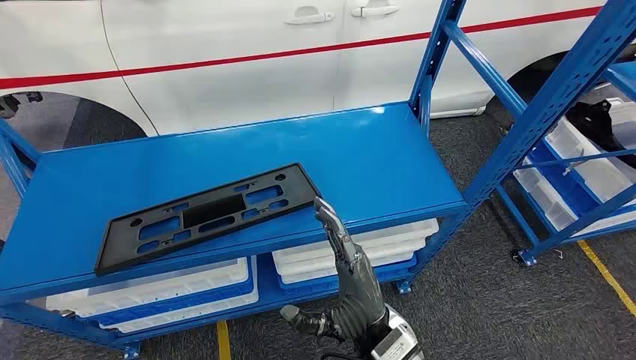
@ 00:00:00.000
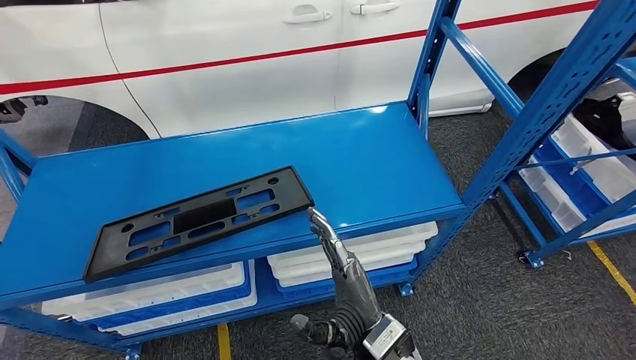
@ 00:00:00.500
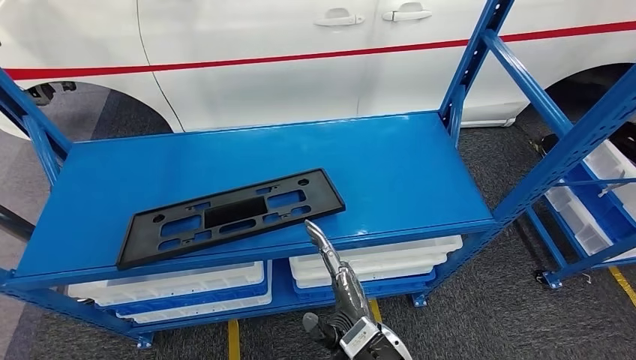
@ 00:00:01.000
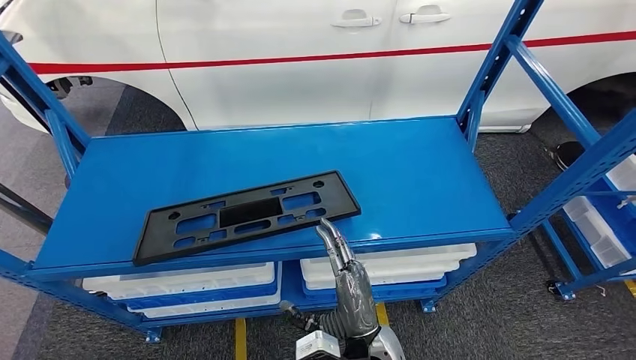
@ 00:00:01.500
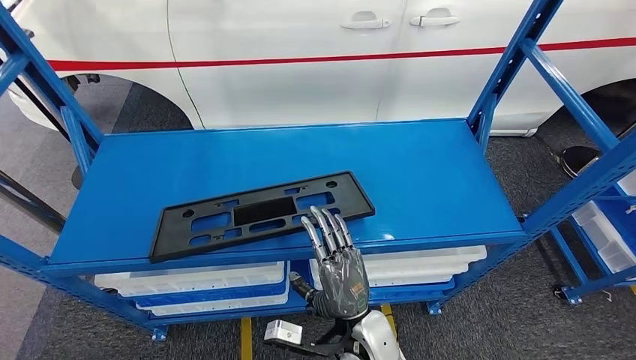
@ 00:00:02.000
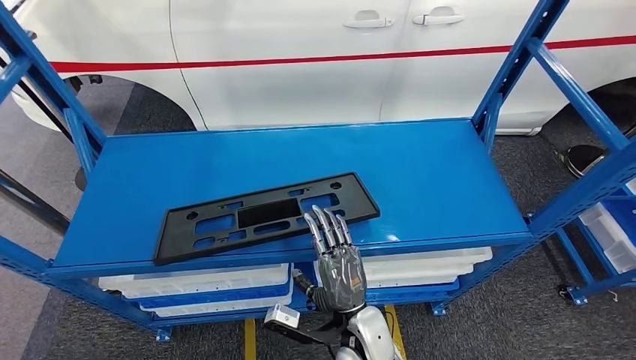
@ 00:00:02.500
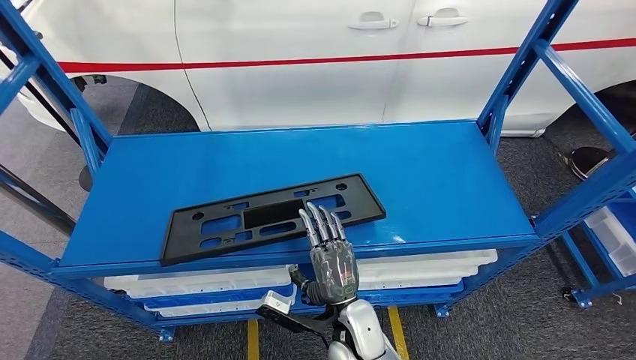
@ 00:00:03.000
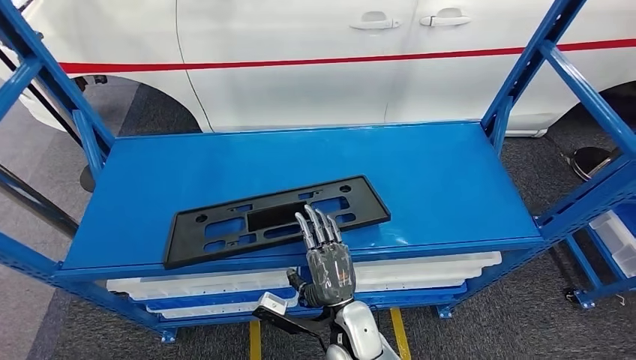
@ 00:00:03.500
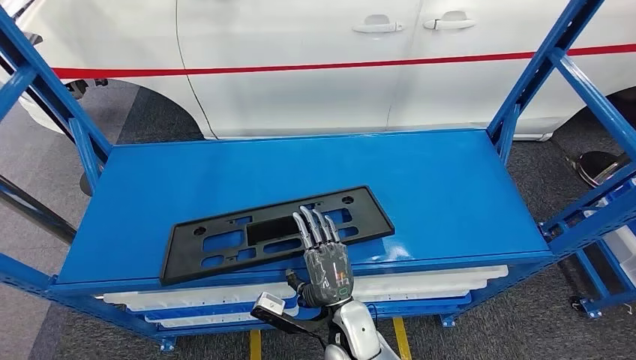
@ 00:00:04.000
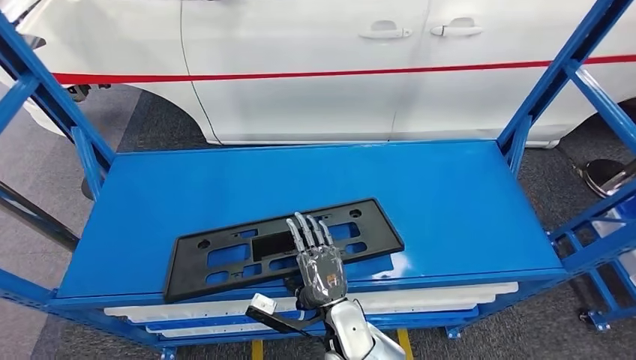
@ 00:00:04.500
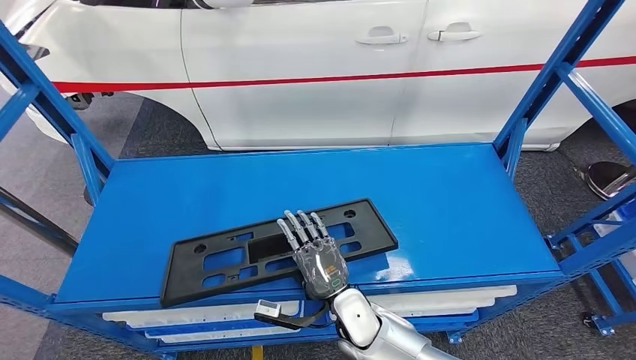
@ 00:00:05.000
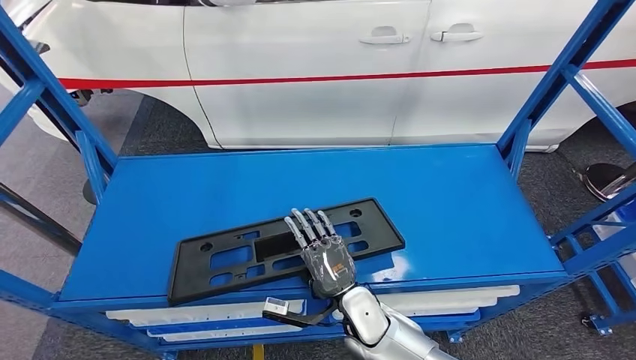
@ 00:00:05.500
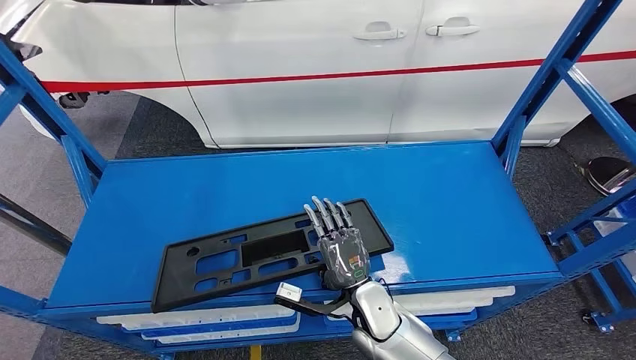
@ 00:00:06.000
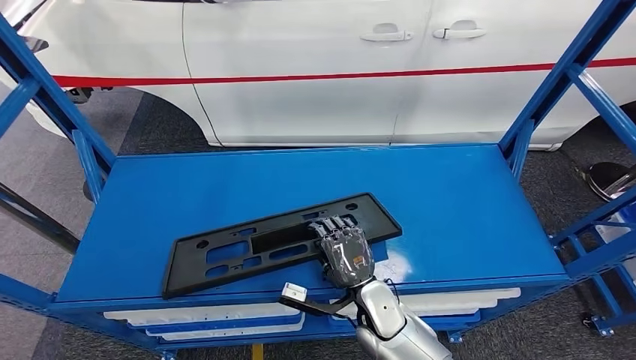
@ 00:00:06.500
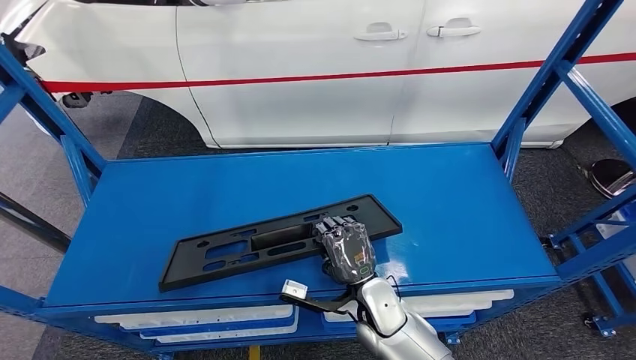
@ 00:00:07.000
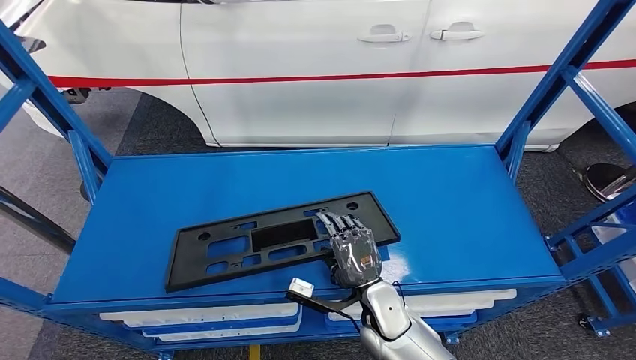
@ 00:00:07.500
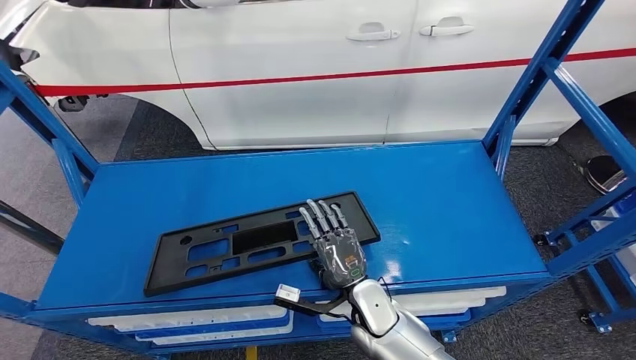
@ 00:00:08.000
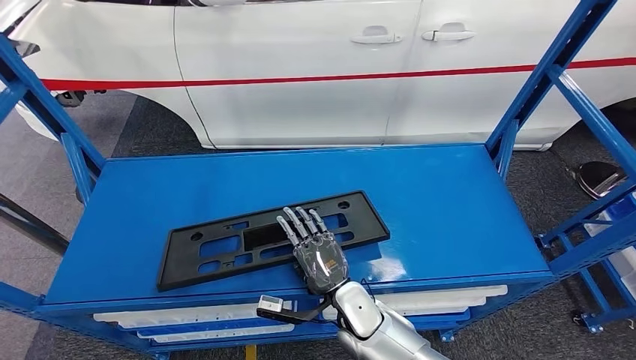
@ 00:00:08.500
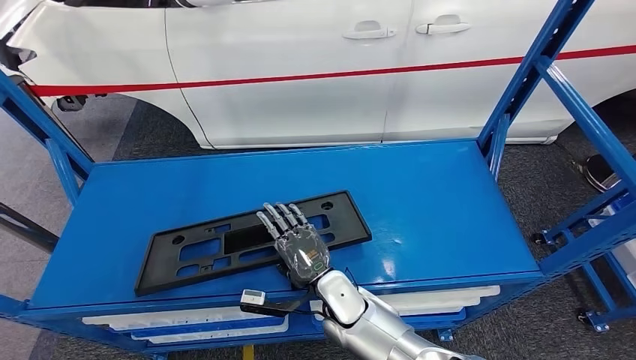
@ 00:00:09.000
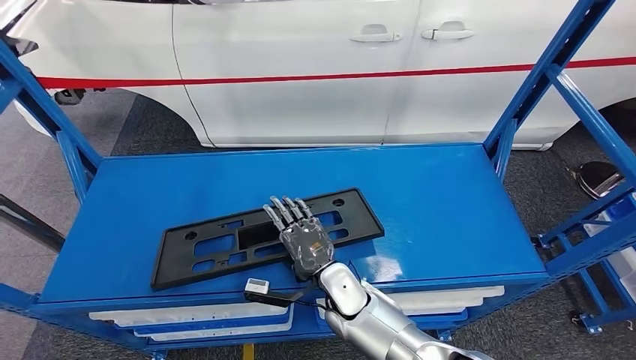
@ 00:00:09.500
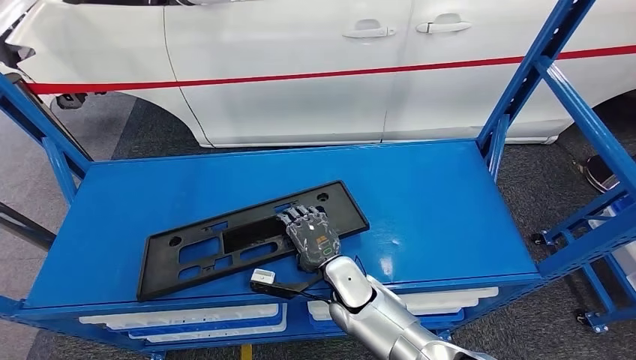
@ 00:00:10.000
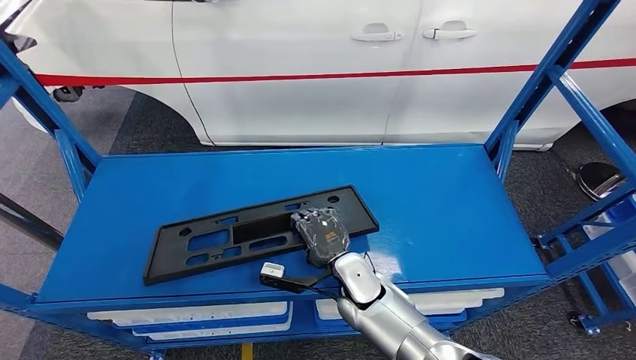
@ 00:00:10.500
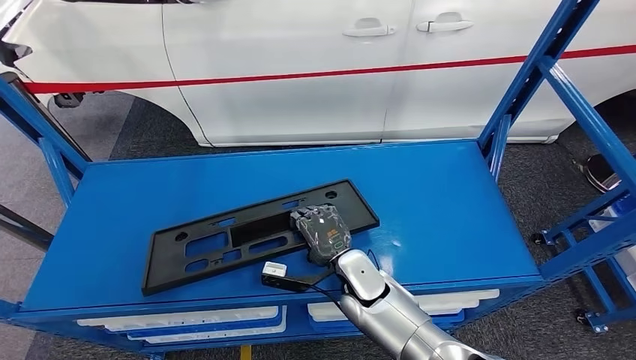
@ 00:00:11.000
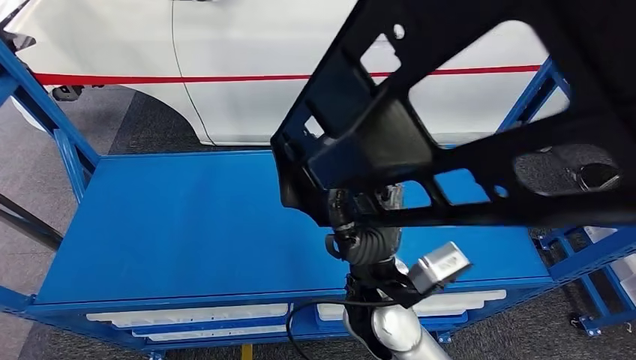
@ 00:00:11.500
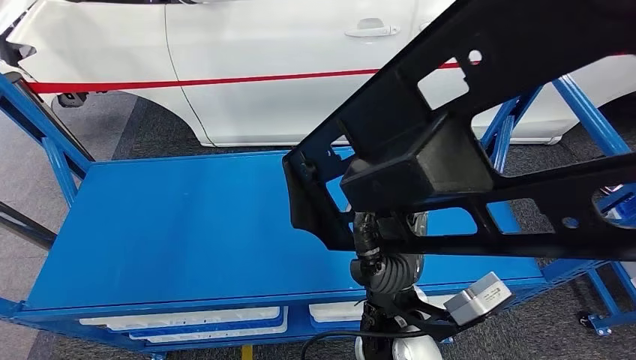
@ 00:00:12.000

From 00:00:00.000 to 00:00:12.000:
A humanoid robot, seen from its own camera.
From 00:00:06.000 to 00:00:08.000: The hands make only small movements.
From 00:00:08.000 to 00:00:10.000: The right hand ends up approximately 5 cm from where it was.

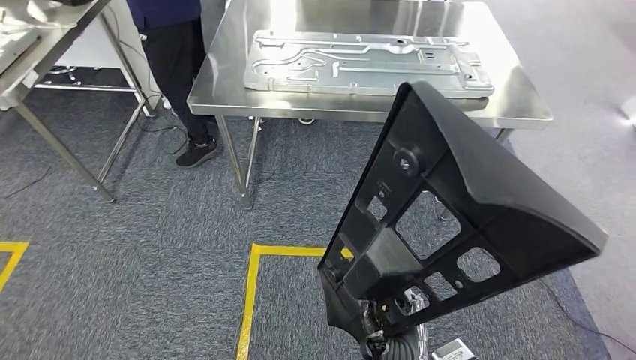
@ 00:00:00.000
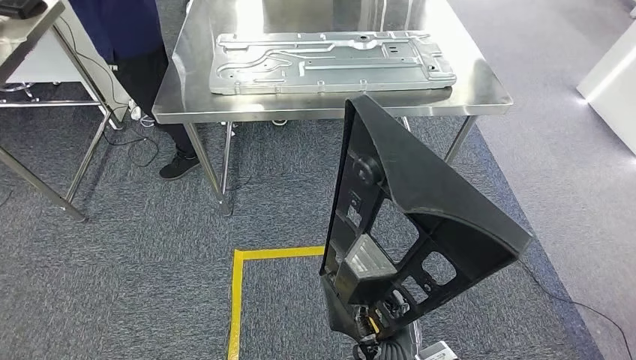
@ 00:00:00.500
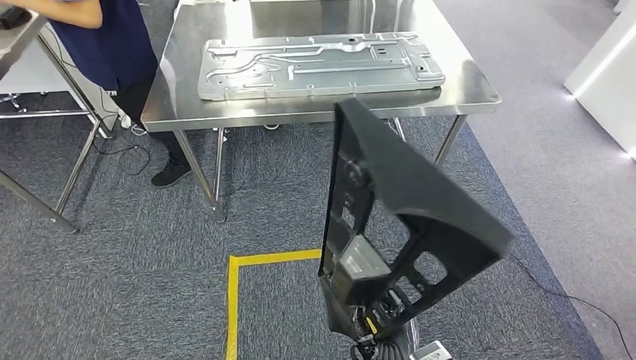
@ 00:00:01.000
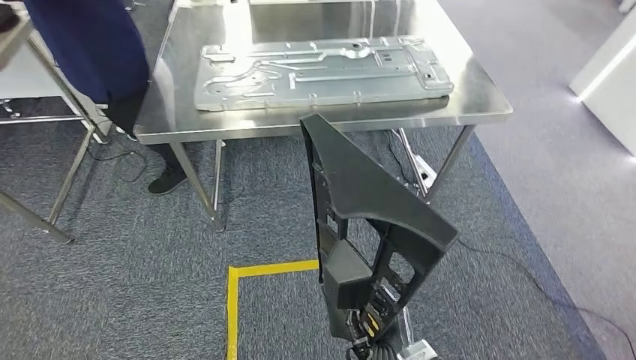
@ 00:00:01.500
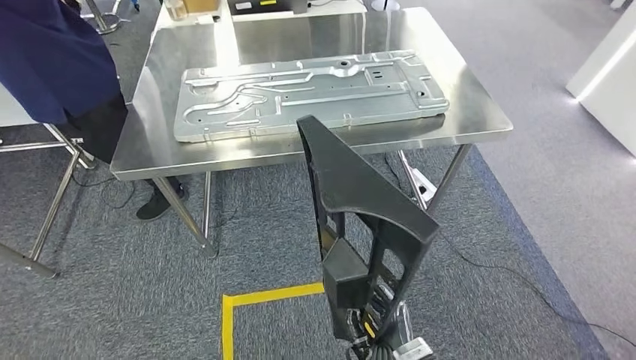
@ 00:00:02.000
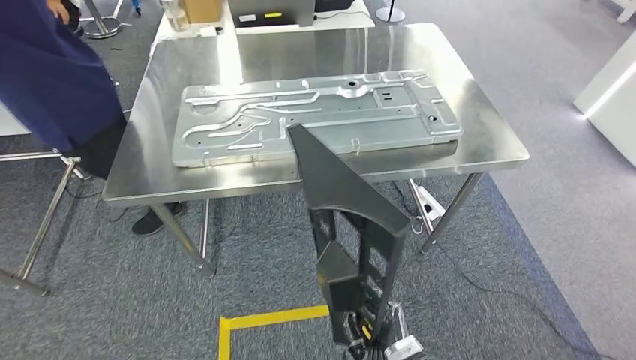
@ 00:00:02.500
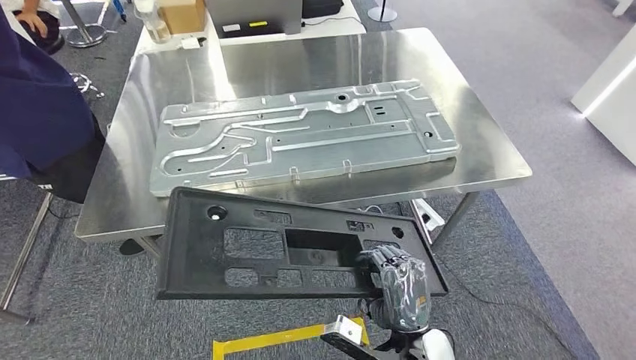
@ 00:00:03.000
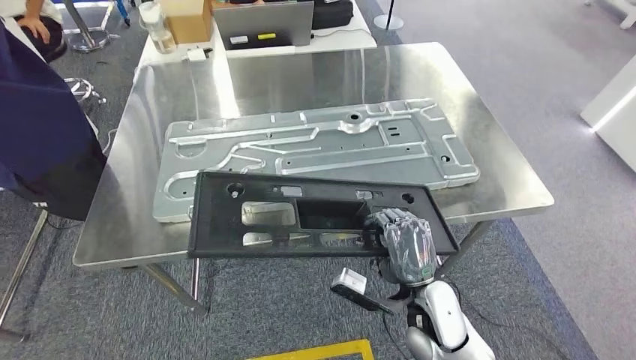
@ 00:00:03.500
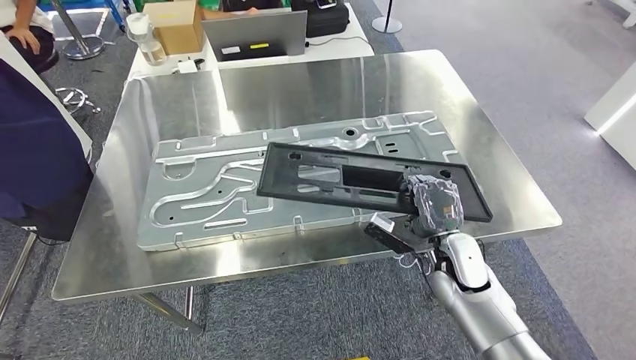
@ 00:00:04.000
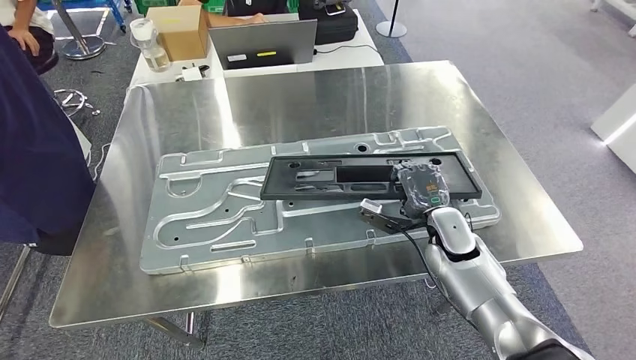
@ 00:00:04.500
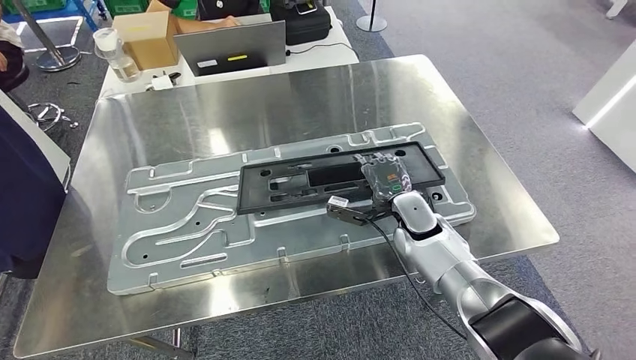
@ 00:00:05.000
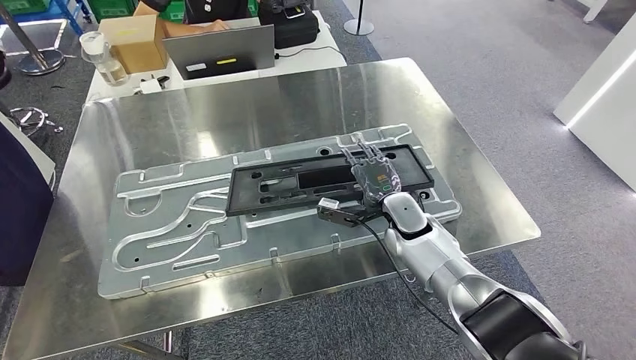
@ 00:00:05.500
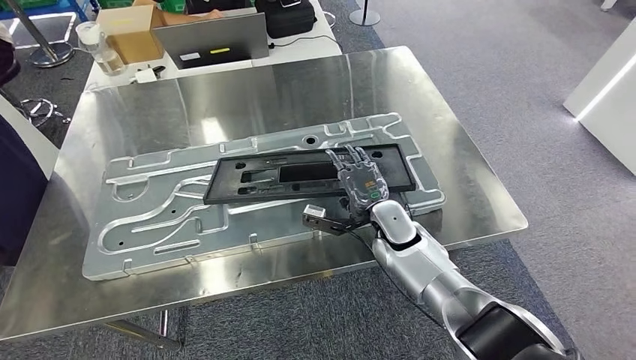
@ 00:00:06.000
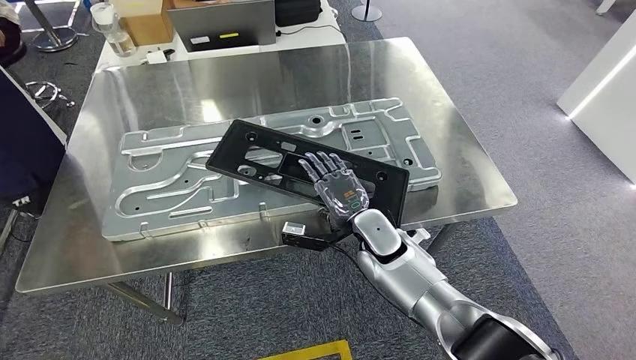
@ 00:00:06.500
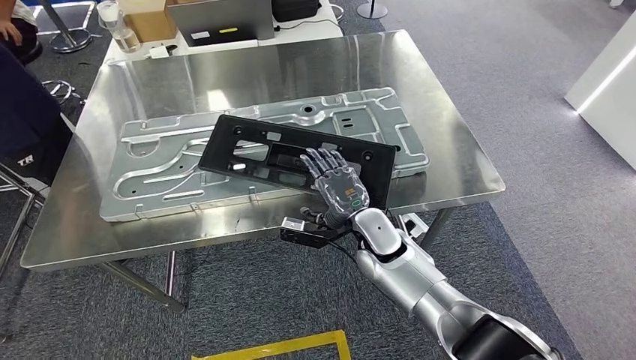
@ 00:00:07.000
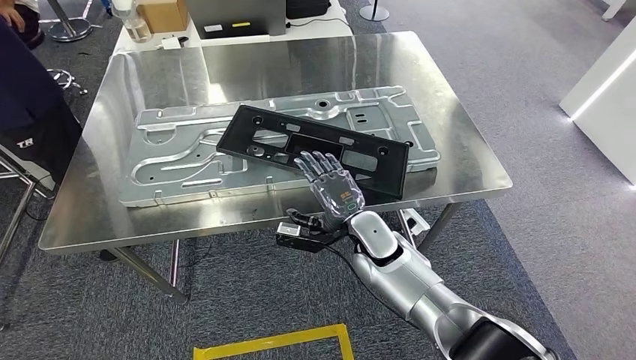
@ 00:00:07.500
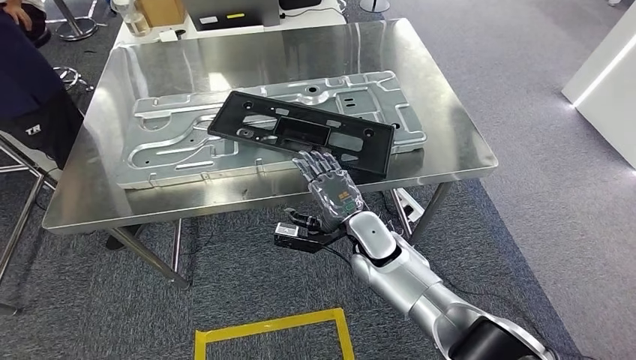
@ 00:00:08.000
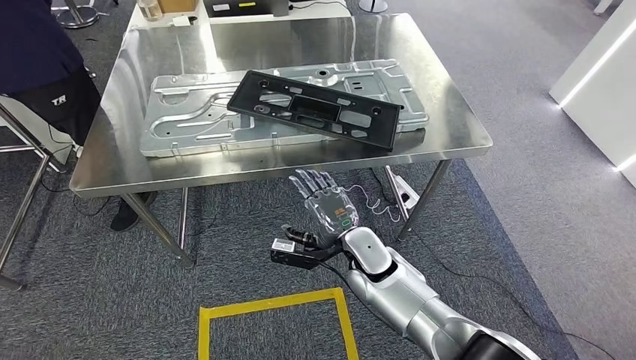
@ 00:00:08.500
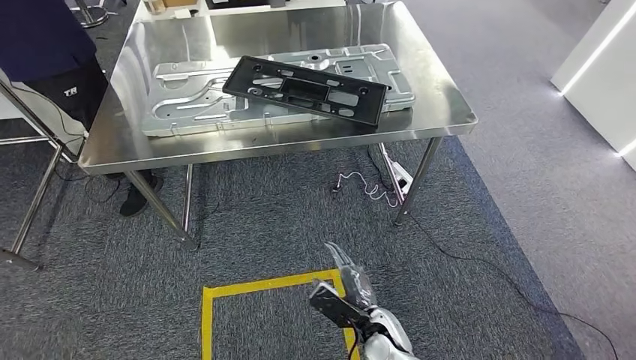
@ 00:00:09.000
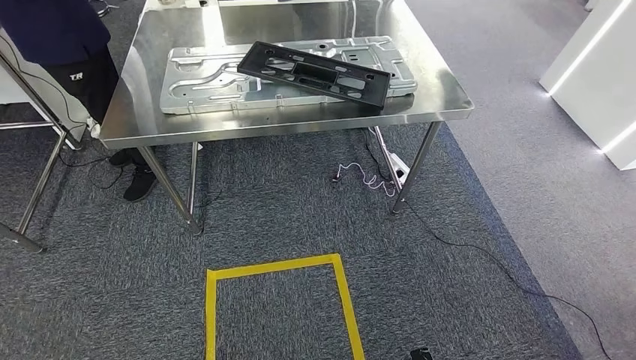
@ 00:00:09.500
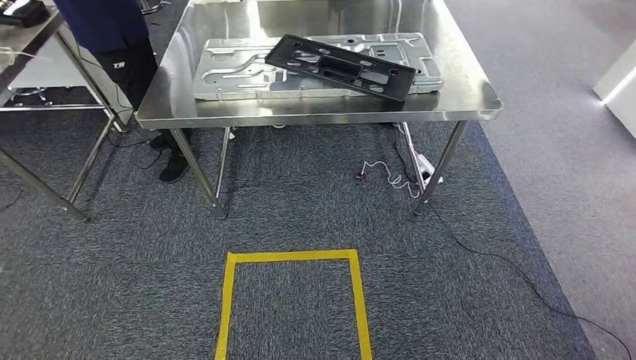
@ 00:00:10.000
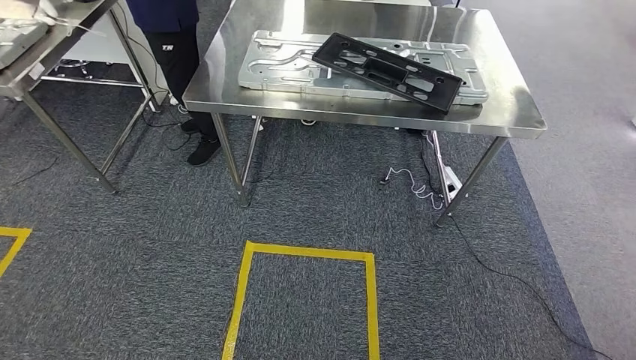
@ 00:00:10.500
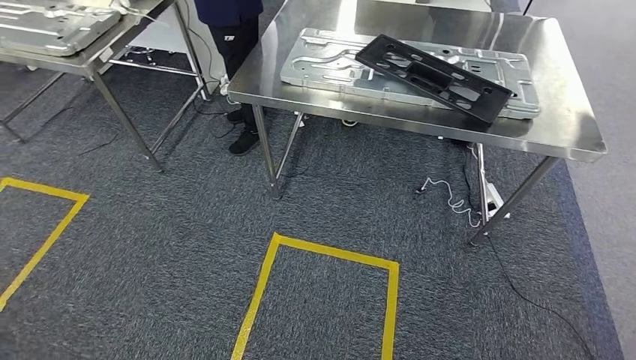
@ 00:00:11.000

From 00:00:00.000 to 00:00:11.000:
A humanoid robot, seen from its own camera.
Step, from 00:00:00.000 to 00:00:03.000: Move the large material to the front of the workbench.
Step, from 00:00:03.500 to 00:00:10.000: Insert the large material into the corresponding hole on the workbench.
